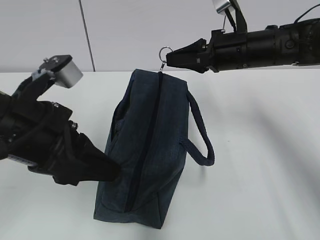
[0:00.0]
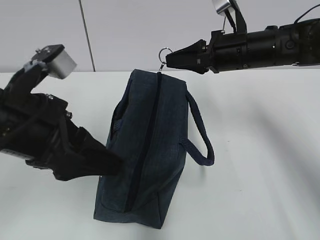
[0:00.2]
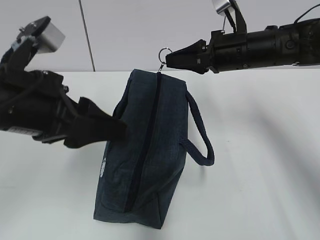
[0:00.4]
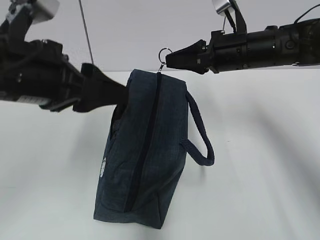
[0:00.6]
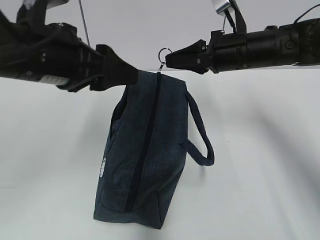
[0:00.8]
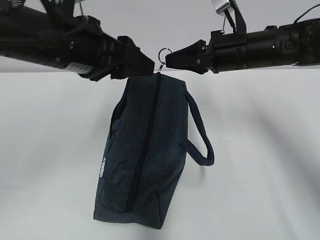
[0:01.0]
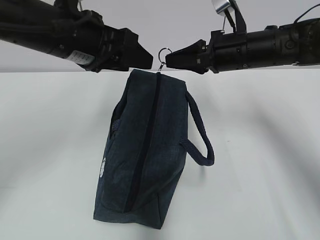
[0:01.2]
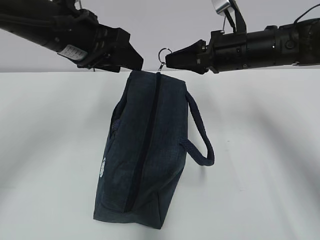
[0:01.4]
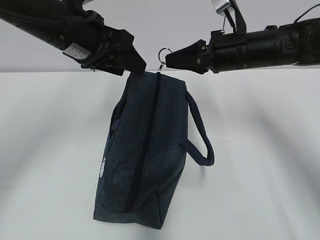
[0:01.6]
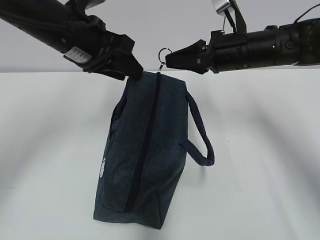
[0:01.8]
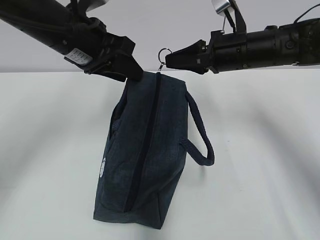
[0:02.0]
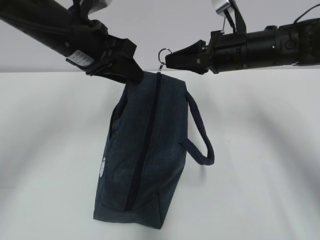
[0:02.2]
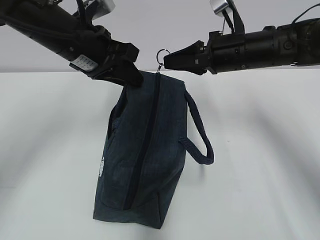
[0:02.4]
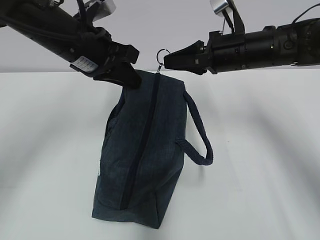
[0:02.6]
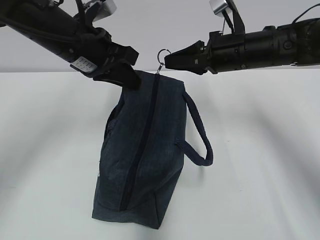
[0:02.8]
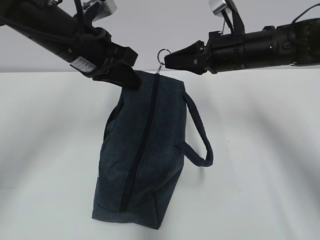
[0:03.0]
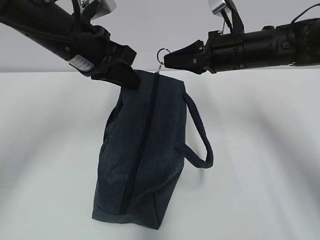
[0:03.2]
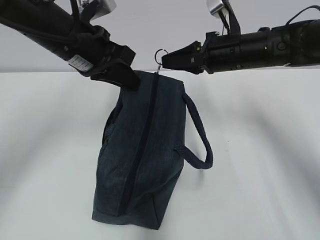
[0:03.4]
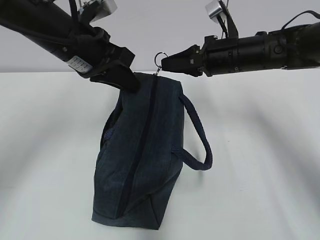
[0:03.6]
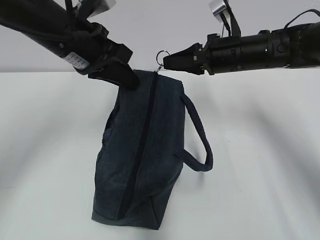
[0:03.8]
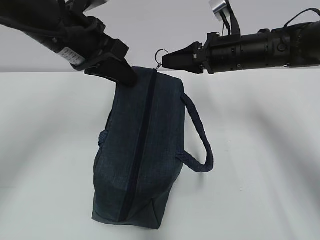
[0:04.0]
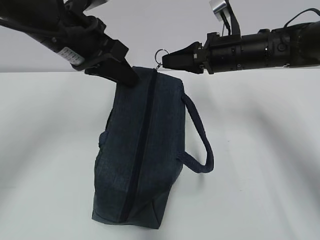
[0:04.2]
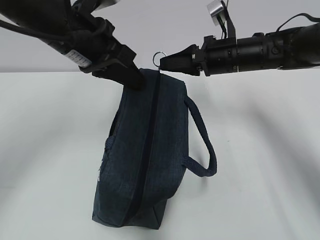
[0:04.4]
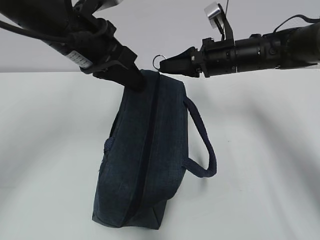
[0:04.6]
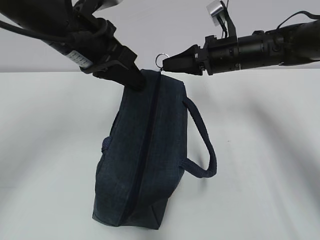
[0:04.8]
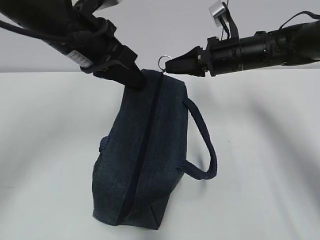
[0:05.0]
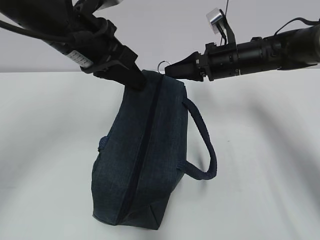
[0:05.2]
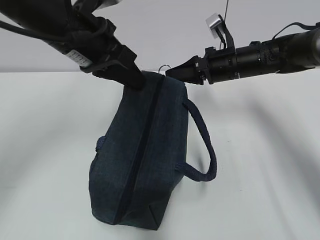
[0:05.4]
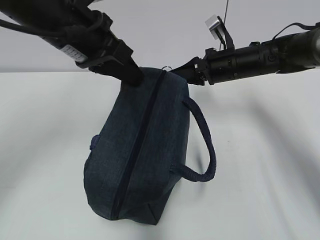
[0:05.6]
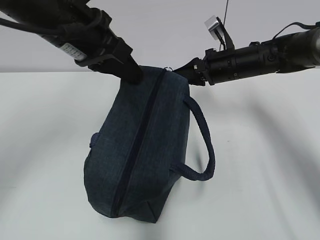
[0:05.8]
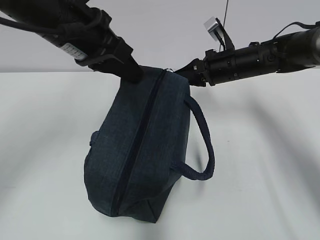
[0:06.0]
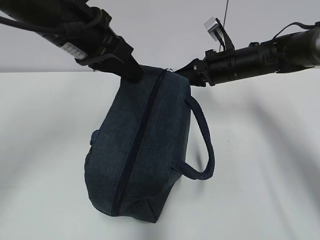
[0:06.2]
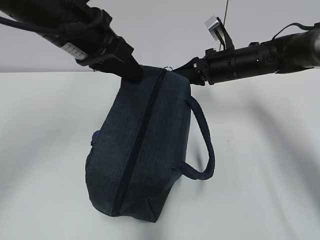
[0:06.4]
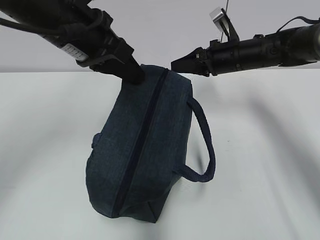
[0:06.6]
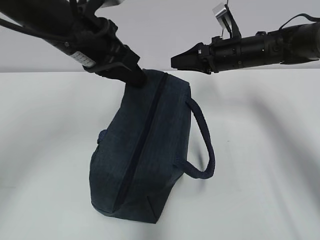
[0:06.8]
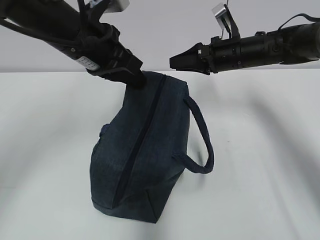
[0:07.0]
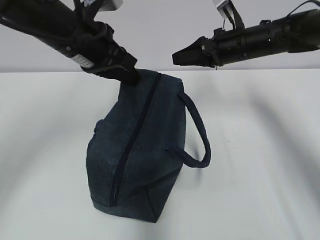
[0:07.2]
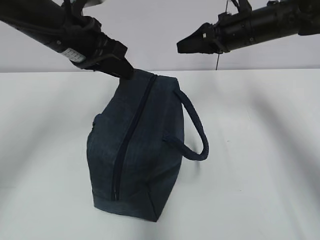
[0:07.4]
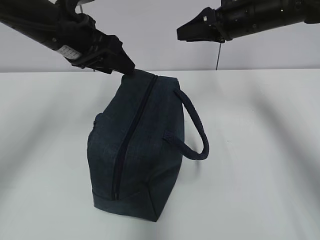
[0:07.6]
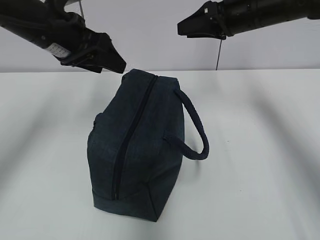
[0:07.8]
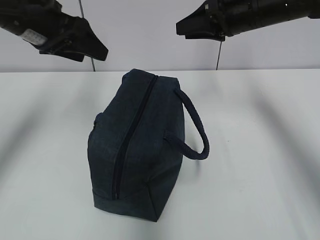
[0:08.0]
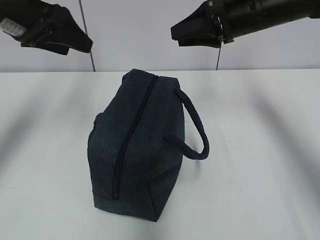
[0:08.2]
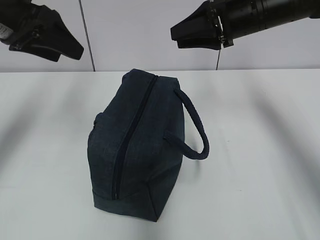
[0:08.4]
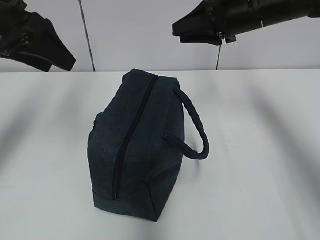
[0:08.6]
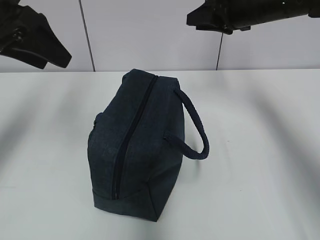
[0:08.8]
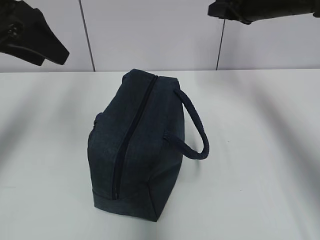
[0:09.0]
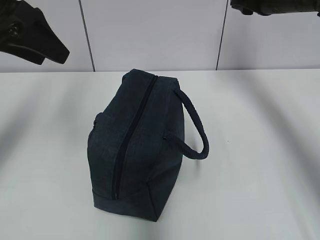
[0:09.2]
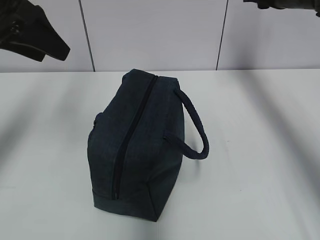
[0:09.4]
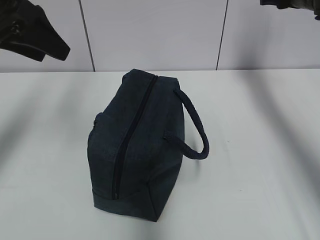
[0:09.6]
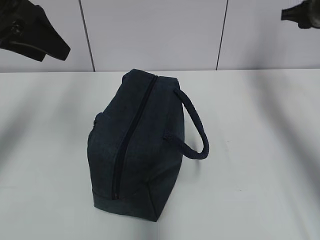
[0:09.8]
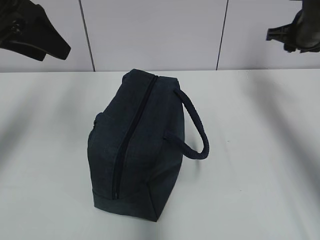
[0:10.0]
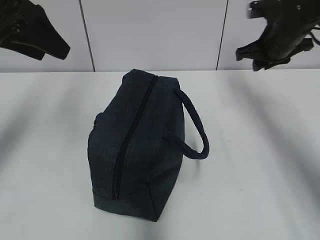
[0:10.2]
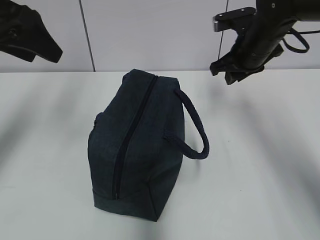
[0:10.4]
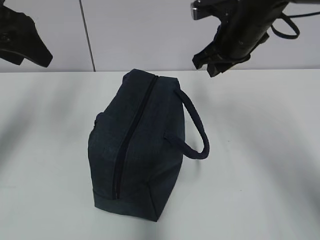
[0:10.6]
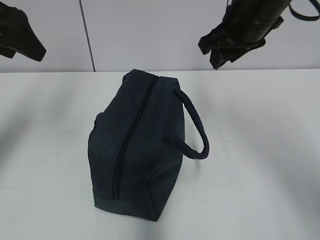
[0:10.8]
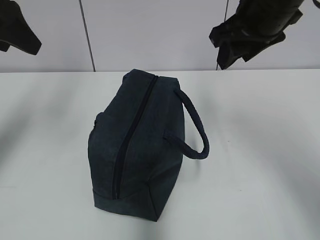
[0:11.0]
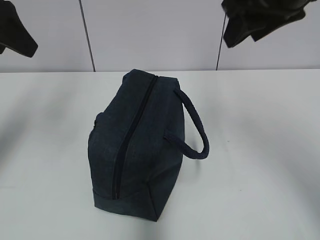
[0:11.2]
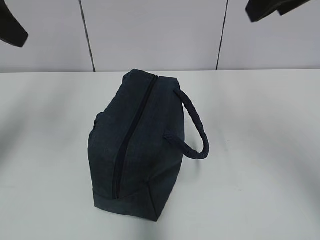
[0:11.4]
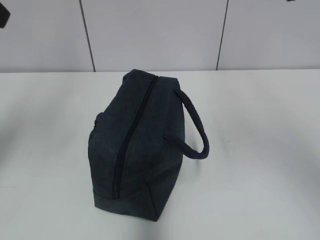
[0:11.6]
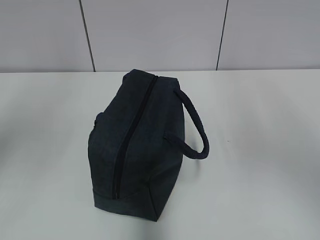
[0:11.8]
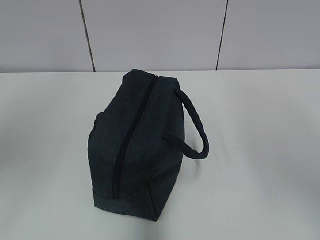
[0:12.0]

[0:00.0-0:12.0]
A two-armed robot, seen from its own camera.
0:00.0 to 0:01.6: The left gripper goes some 15 cm forward.
0:01.6 to 0:03.0: The left gripper closes.
0:03.0 to 0:04.4: The grippers make only small movements.
0:04.4 to 0:06.0: The grippers stay close to where they were, moving slightly.
0:06.0 to 0:07.6: The right gripper is displaced upward by about 10 cm, and opens. Meanwhile the left gripper ends up about 5 cm from where it was, and opens.
0:07.6 to 0:09.0: The left gripper is displaced to the left, upward and backward by about 10 cm, while the right gripper ends up approximately 5 cm from where it was.
0:09.0 to 0:10.4: The right gripper shifts about 5 cm downward, and reaches about 10 cm to the right, then returns.
0:10.4 to 0:12.0: The left gripper travels backward and upward by roughly 20 cm. The right gripper heads backward and upward, covering about 35 cm, and opens.

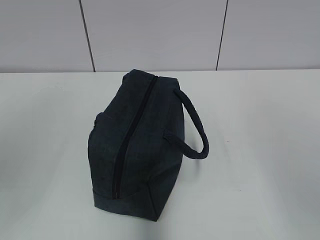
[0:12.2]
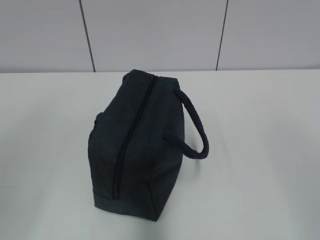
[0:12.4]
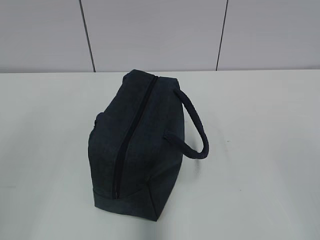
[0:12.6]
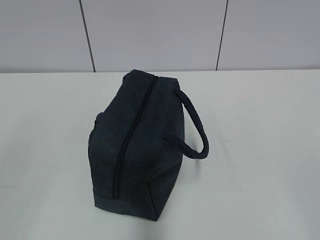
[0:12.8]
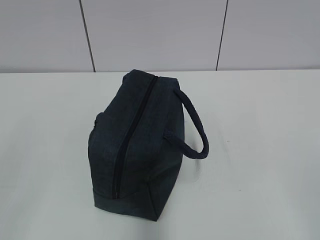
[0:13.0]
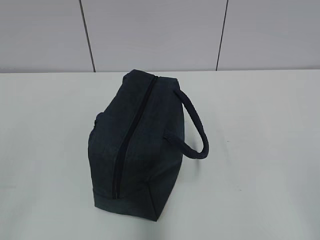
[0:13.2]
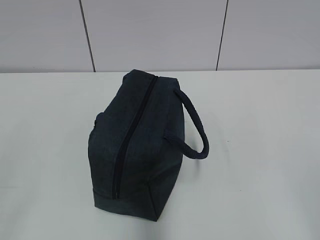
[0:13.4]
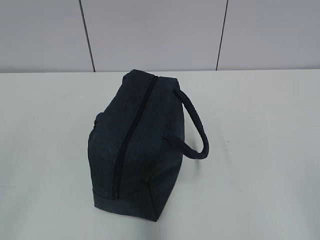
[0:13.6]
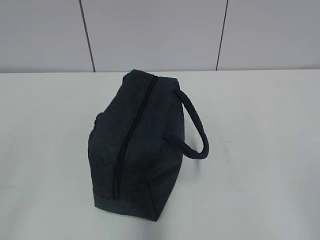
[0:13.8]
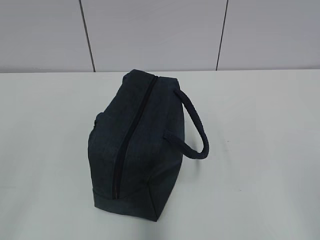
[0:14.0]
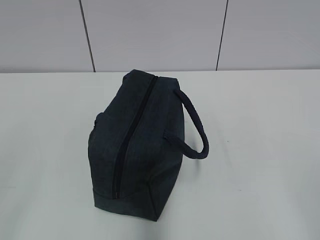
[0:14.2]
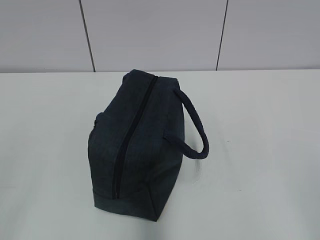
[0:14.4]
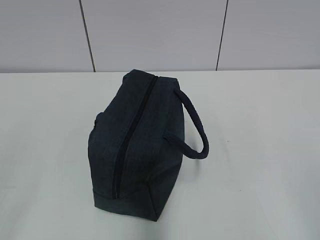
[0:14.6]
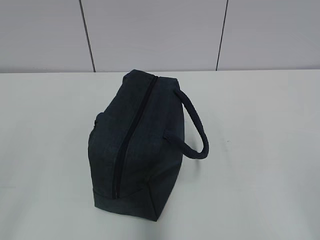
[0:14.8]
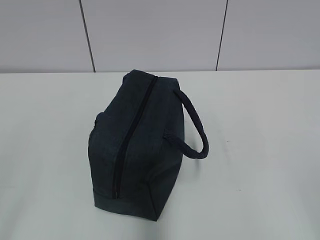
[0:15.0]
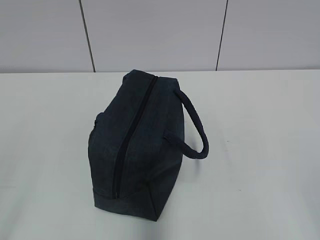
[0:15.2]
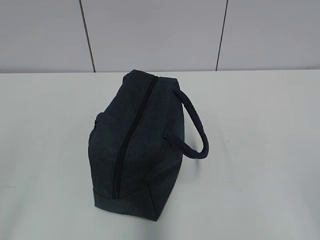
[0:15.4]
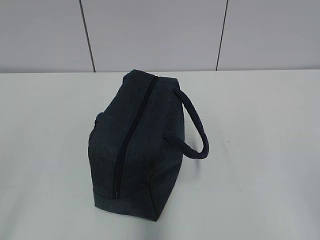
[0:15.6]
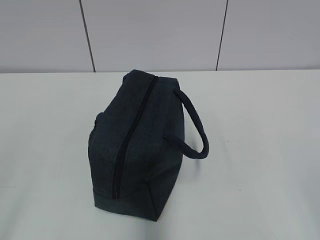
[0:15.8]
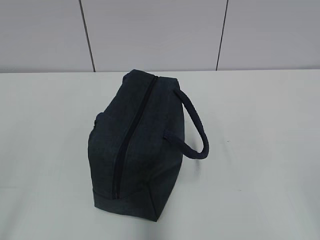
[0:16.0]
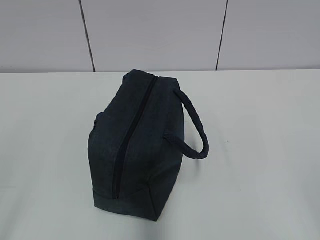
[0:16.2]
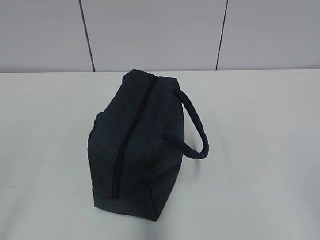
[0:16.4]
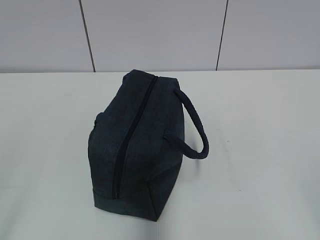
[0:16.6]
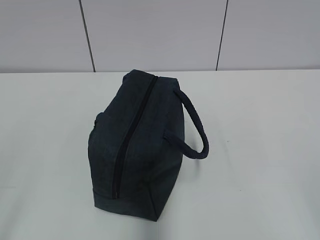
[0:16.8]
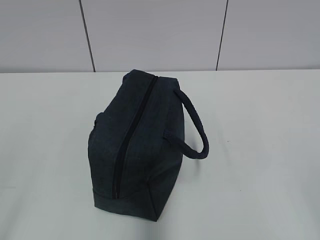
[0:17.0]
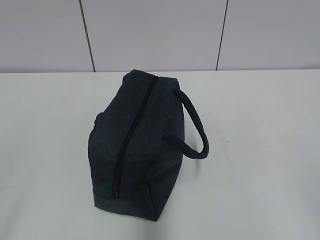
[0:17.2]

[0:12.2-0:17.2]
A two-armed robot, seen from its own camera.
0:15.6 to 0:17.2: The two grippers keep their place.
